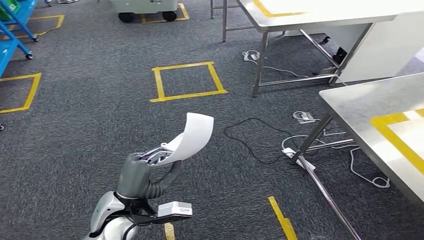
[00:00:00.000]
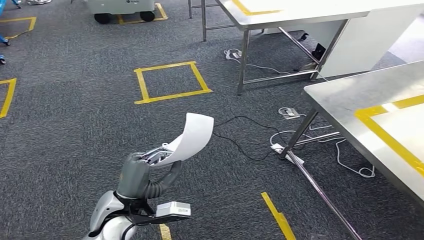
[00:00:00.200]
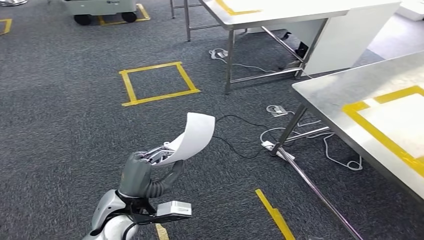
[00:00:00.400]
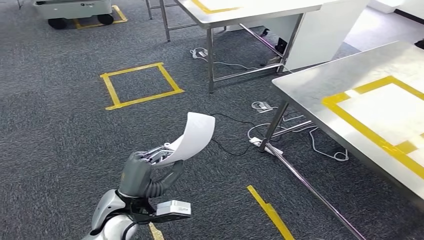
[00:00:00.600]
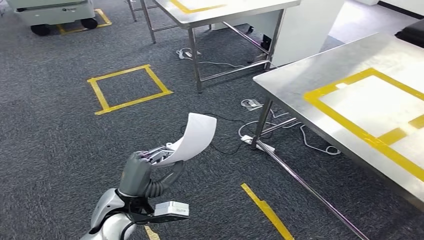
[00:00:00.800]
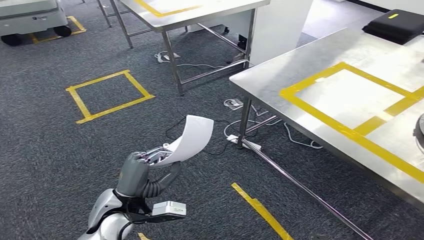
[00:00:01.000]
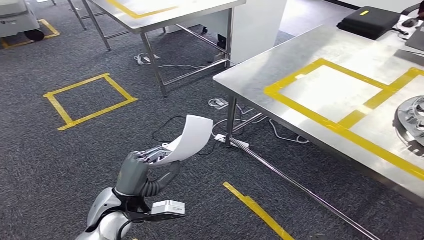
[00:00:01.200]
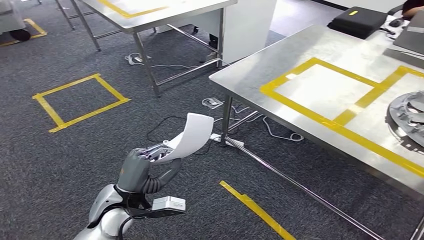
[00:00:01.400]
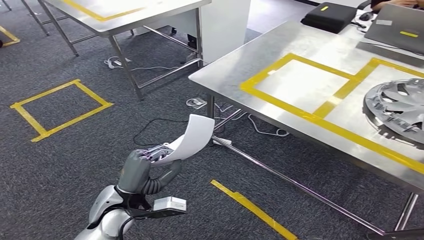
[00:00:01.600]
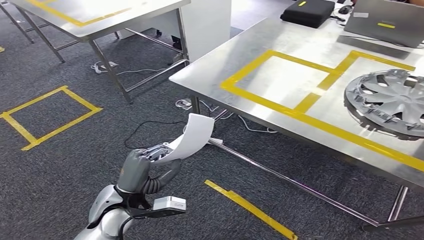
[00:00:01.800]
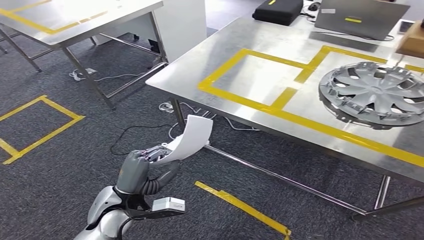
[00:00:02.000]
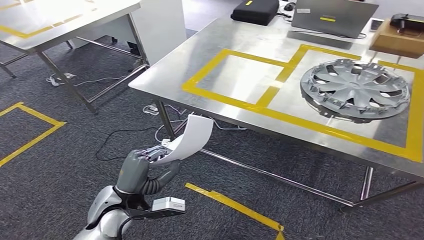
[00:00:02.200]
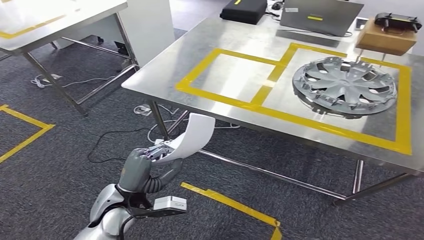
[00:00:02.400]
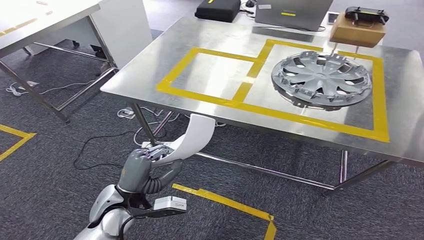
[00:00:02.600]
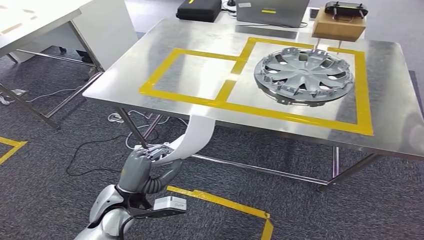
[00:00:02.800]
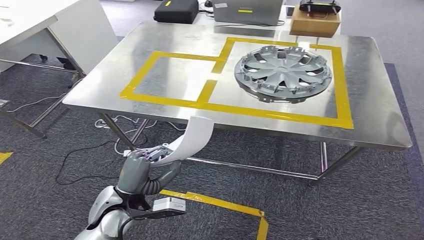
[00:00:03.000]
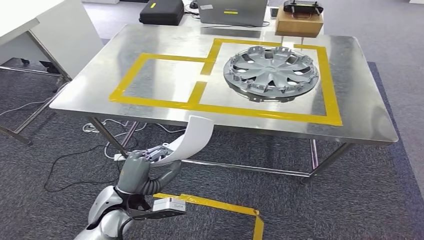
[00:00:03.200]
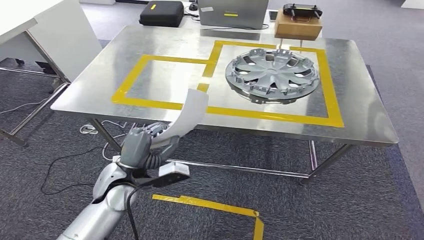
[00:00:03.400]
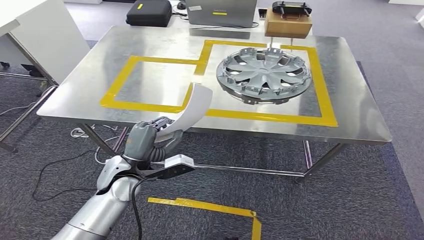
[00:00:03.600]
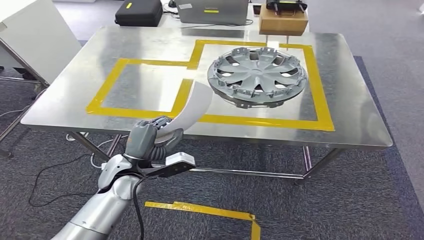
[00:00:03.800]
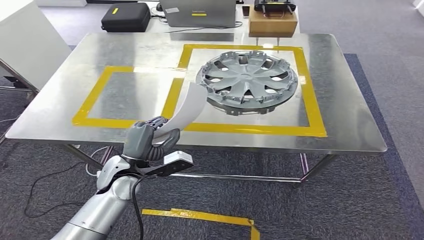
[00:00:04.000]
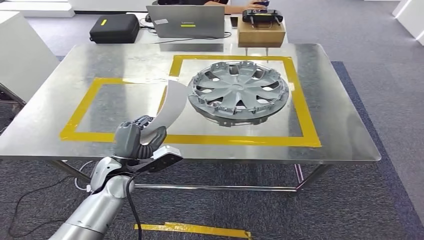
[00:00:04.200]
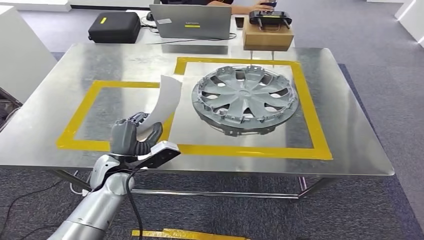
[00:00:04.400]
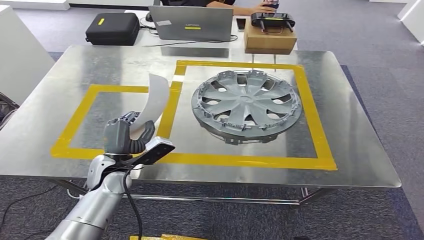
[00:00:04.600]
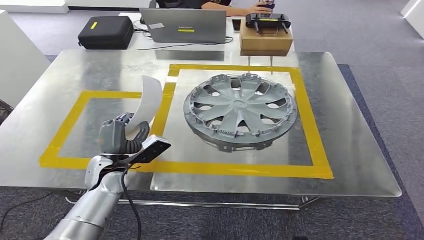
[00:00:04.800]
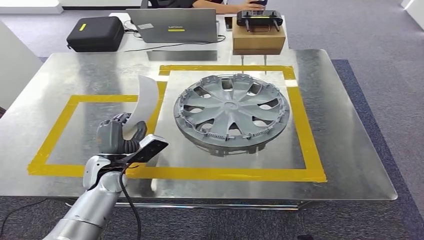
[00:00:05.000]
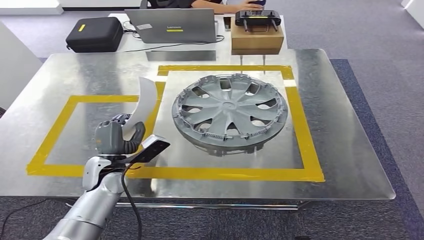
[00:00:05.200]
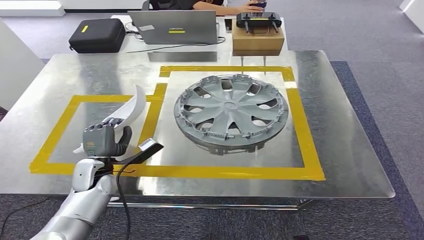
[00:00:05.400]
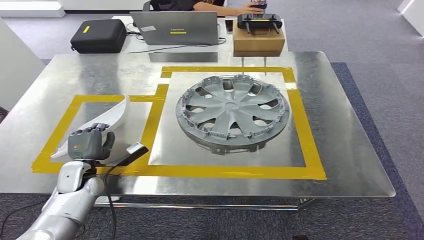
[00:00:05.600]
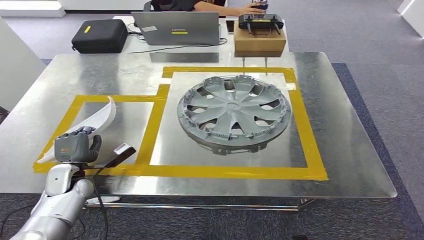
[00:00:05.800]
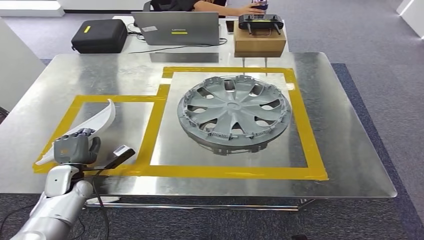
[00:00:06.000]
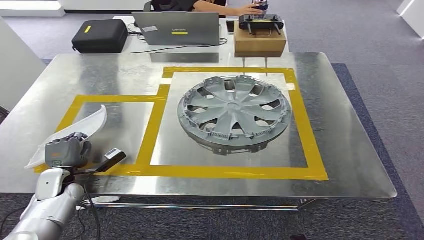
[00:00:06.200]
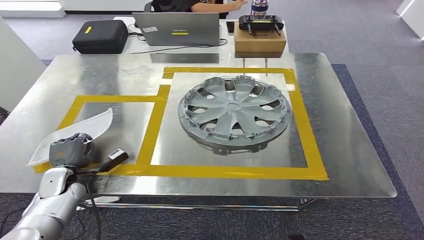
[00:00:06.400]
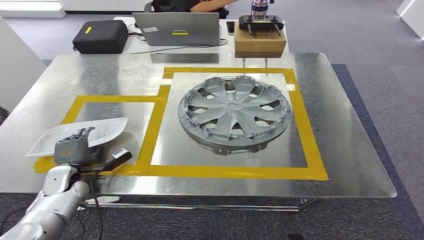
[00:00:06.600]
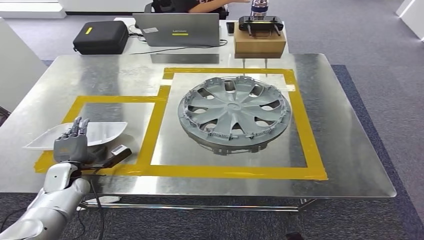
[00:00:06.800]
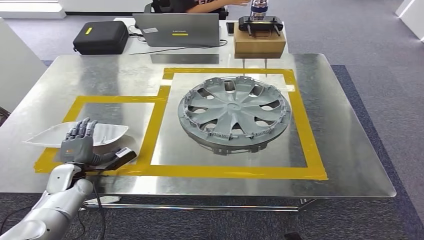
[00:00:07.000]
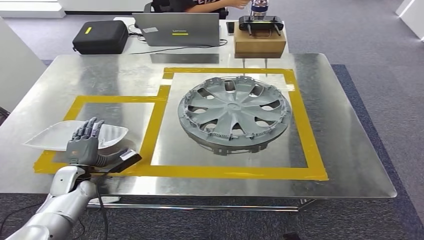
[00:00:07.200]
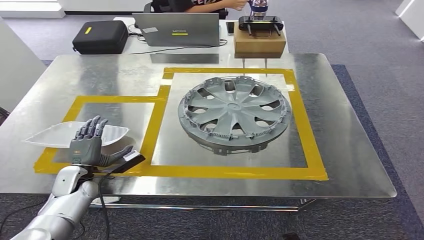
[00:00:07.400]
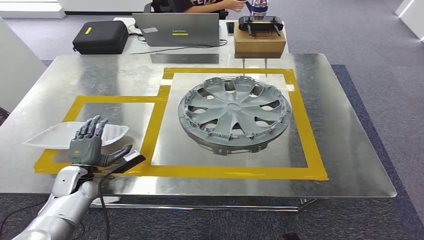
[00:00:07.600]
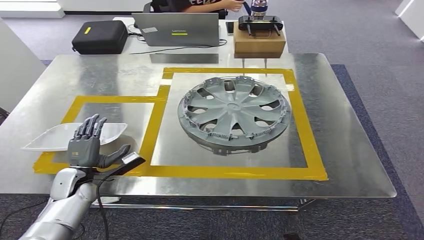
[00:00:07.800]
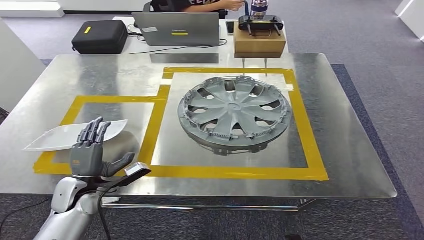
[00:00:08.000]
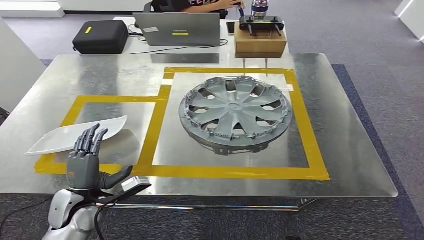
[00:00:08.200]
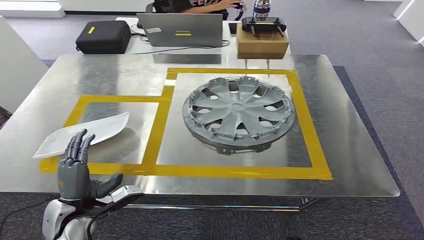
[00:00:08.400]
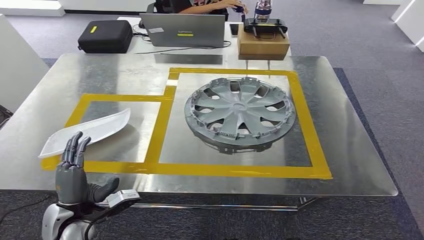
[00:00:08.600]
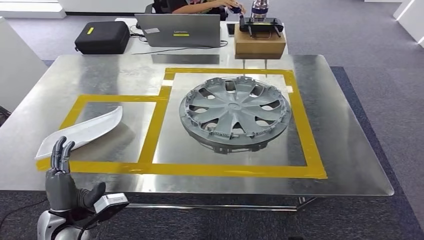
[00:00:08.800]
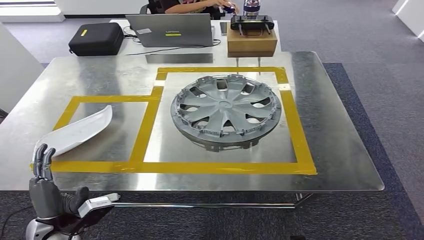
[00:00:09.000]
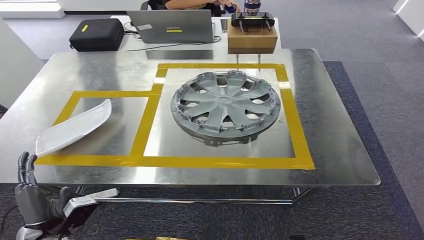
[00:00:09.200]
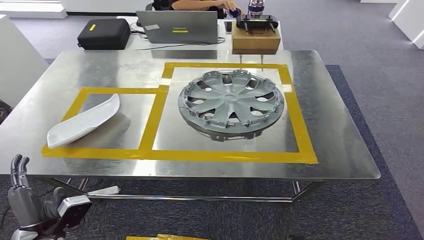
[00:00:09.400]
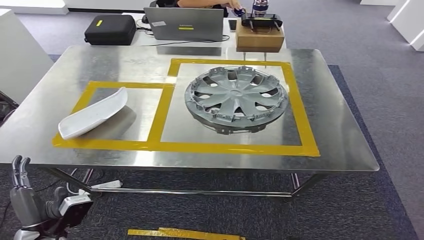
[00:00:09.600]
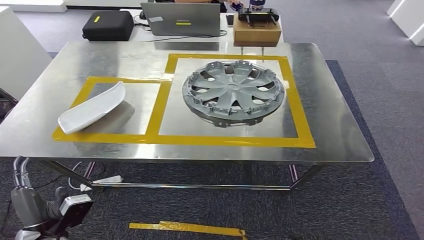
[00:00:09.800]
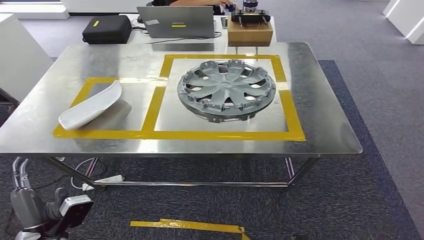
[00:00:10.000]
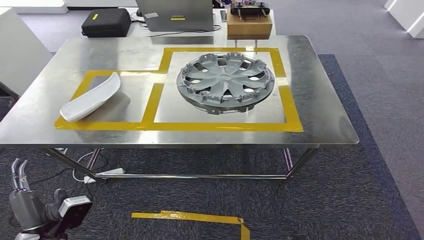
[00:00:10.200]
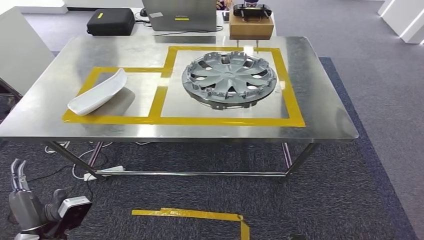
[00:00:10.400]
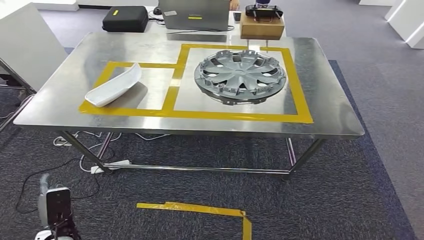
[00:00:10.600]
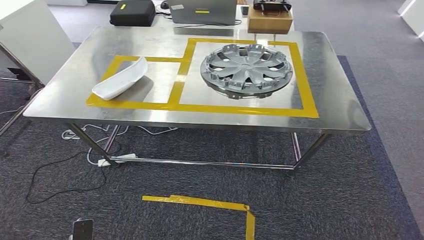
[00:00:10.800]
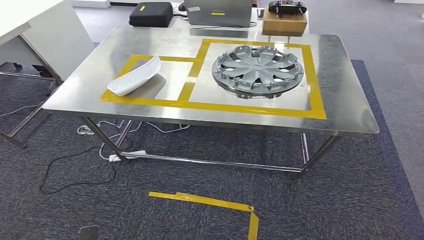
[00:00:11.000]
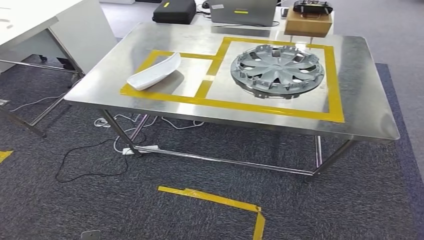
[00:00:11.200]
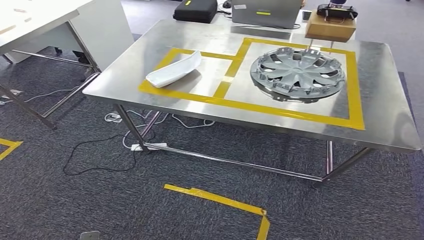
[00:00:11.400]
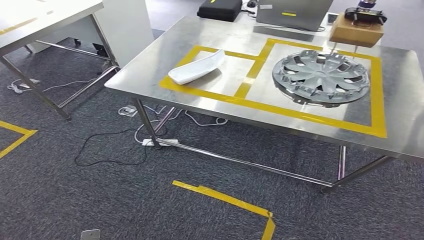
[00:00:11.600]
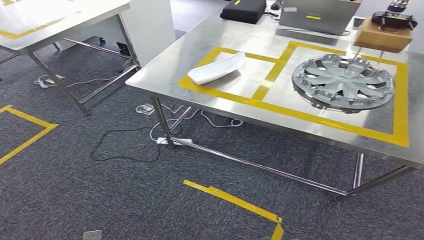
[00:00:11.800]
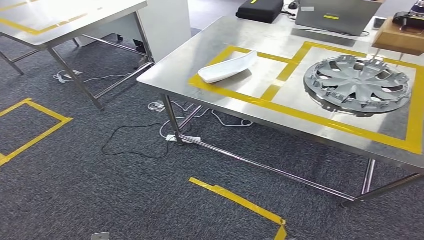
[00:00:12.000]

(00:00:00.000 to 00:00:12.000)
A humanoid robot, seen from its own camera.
Step, 00:00:00.000 - 00:00:04.000: Move the small component to the workbench.
Step, 00:00:04.200 - 00:00:09.000: Insert the small component into the corresponding slot on the workbench.
00:00:06.000 - 00:00:07.600: The hands stay close to where they were, moving slightly.

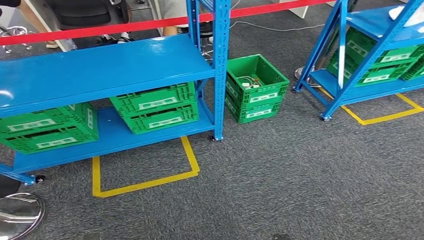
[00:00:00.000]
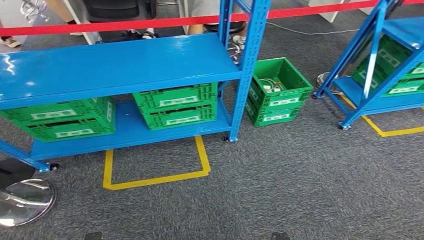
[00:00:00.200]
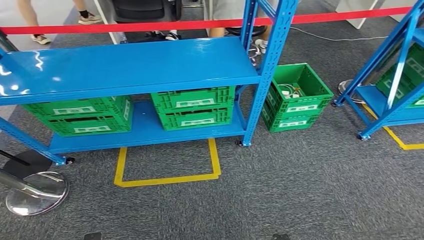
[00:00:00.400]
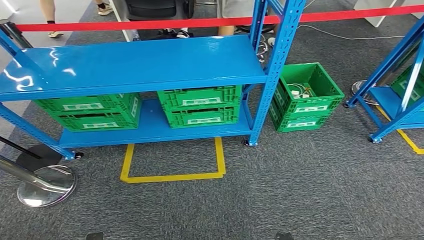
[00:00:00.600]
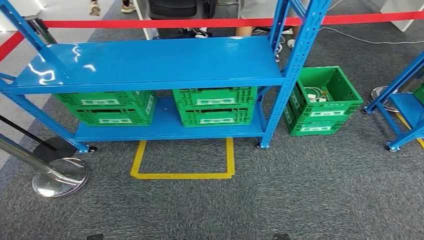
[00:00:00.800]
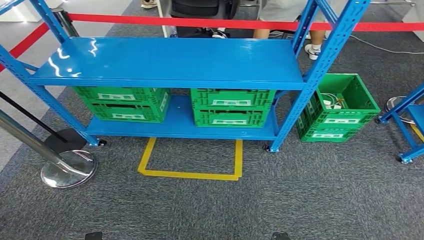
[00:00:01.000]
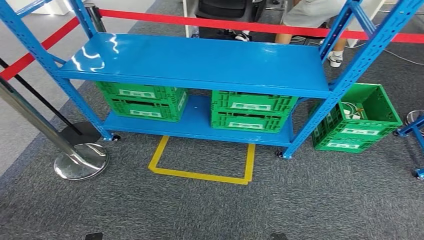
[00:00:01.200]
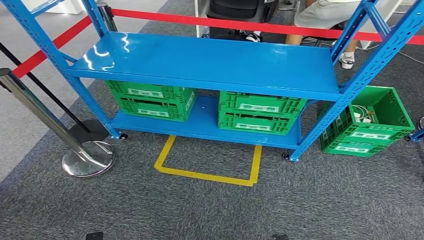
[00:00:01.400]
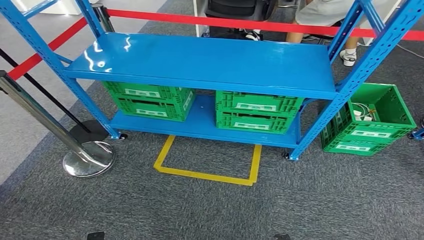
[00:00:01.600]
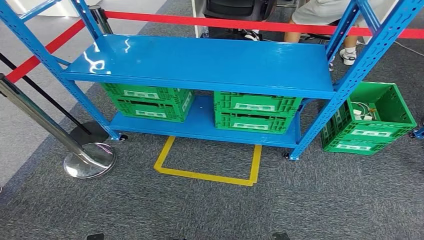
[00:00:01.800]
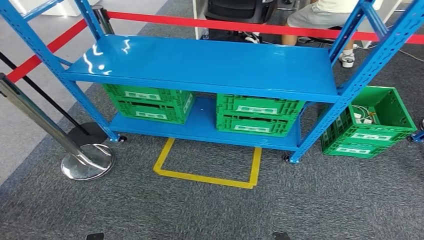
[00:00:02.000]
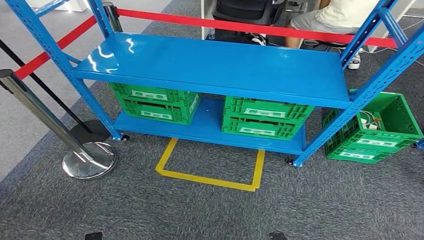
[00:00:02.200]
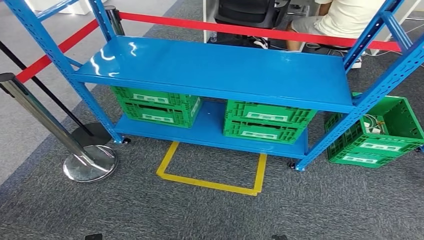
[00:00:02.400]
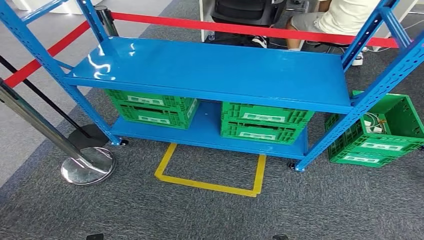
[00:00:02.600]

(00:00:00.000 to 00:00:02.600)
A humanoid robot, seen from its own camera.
Step, 00:00:00.000 - 00:00:02.600: Return to the initial position at the workbench.
